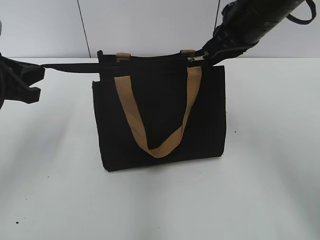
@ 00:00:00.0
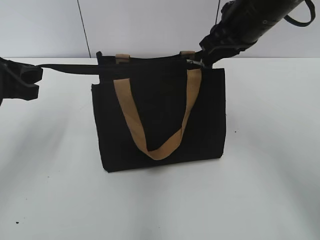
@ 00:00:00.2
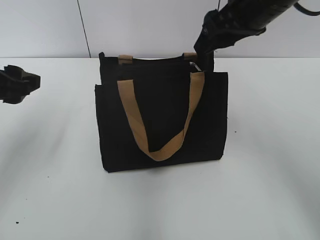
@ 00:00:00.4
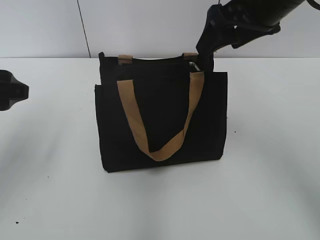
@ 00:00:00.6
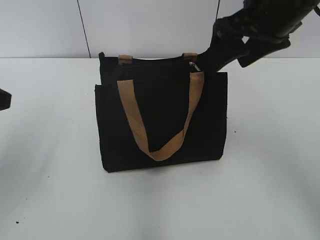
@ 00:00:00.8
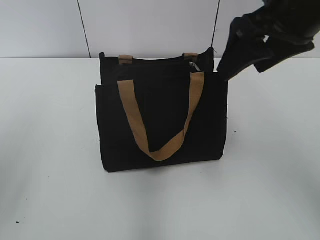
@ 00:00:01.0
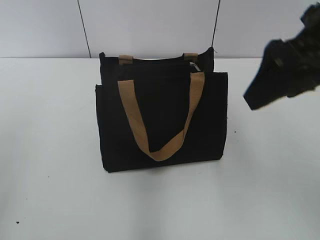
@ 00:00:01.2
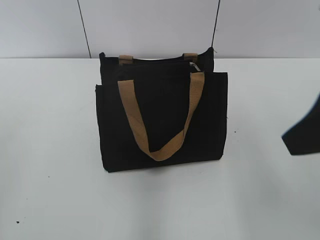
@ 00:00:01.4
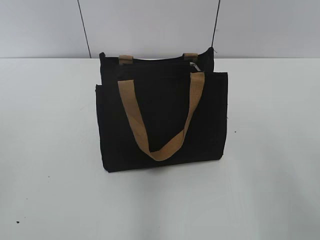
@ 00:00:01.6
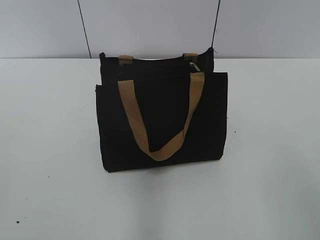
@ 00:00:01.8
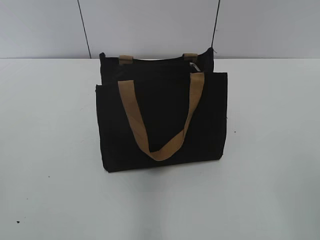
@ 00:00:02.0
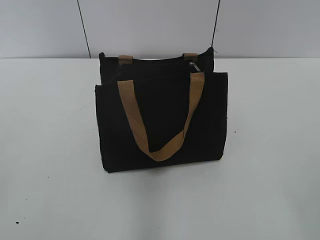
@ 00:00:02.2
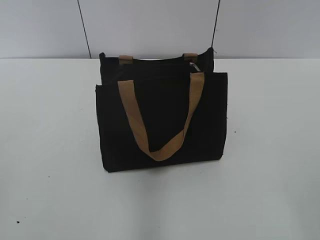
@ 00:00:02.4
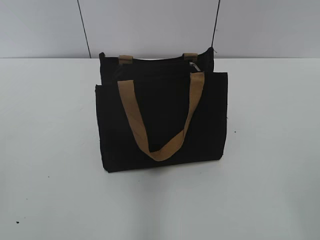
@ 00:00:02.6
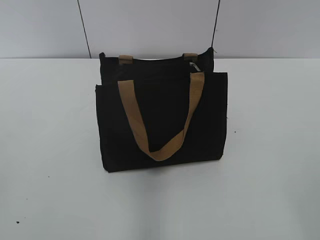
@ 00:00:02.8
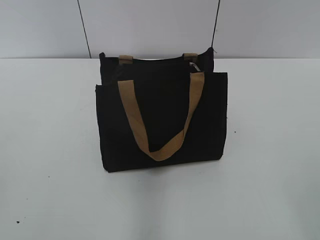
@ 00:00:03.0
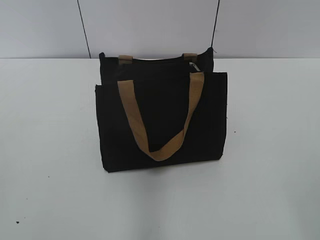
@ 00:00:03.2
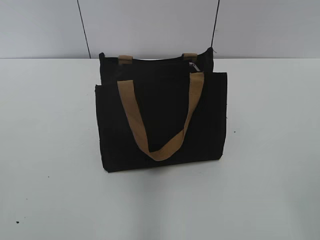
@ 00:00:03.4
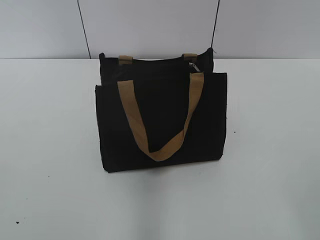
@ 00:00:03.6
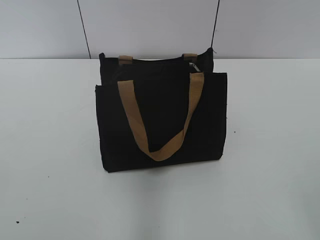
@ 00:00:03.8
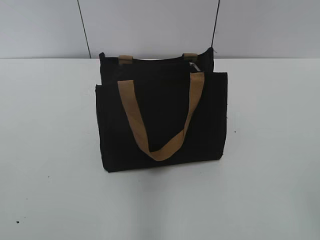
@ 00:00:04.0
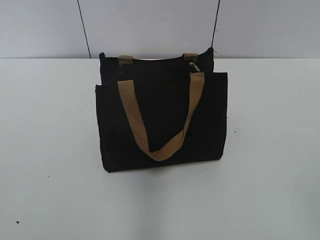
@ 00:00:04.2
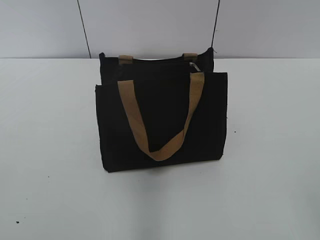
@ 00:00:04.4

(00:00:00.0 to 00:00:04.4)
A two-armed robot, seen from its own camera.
00:00:00.0 - 00:00:01.4: The left gripper moves backward and upward, some 20 cm, and opens up. The right gripper is displaced backward by roughly 20 cm, and opens.
00:00:01.4 - 00:00:03.0: The right gripper is displaced backward and to the right by about 20 cm.
